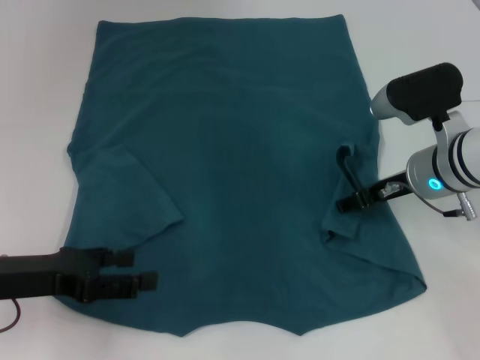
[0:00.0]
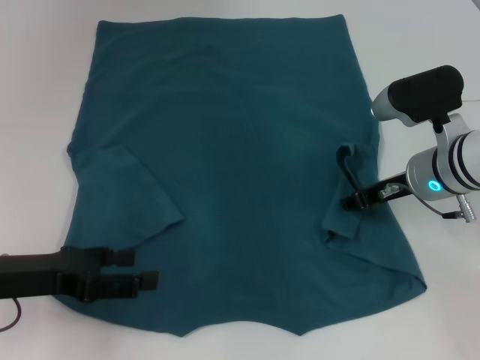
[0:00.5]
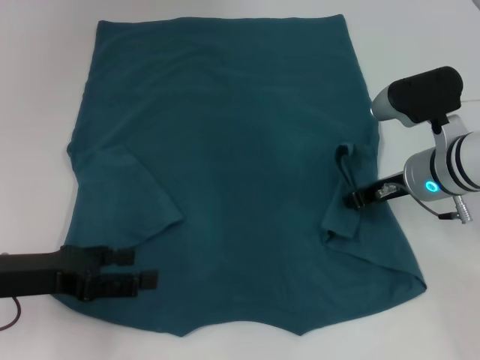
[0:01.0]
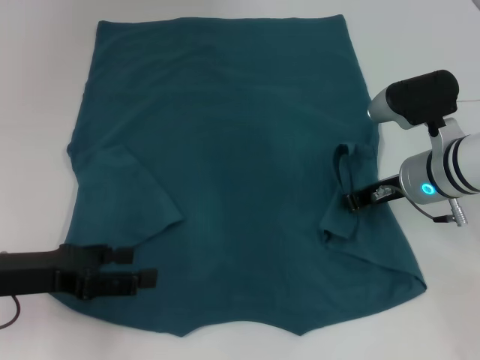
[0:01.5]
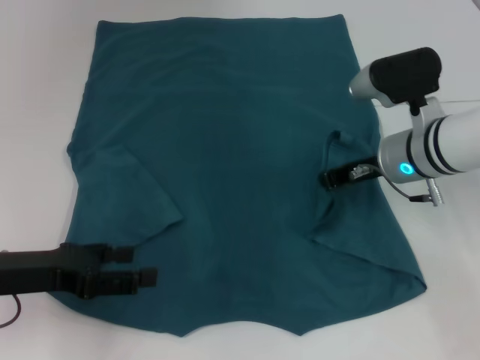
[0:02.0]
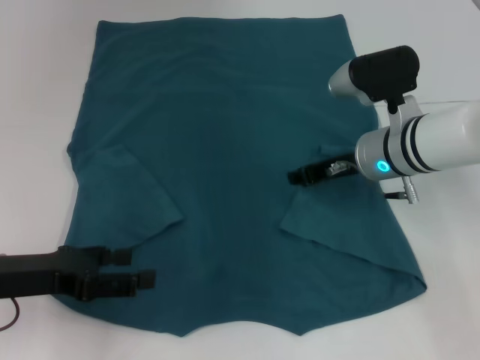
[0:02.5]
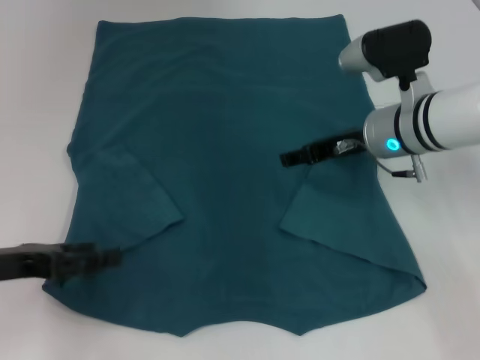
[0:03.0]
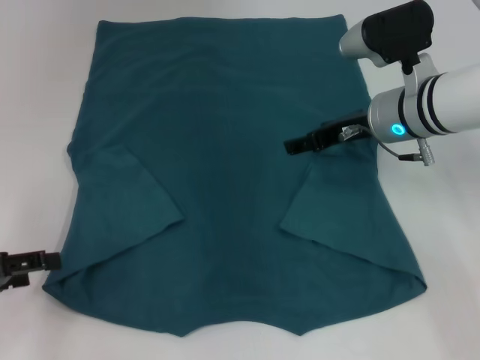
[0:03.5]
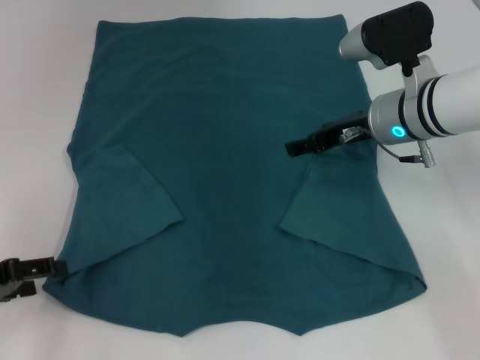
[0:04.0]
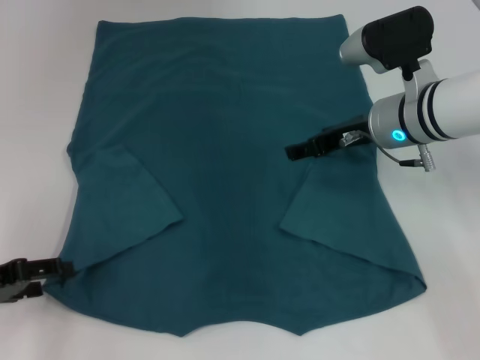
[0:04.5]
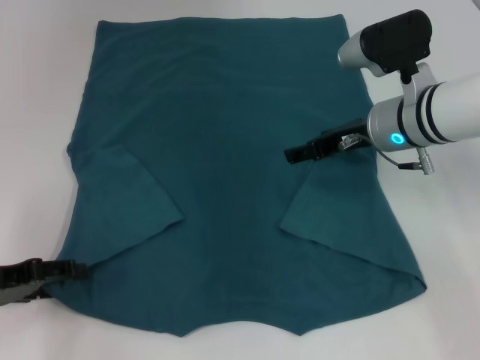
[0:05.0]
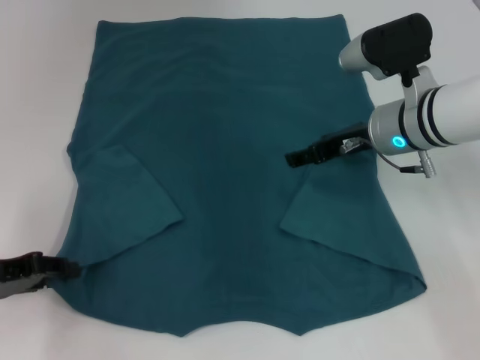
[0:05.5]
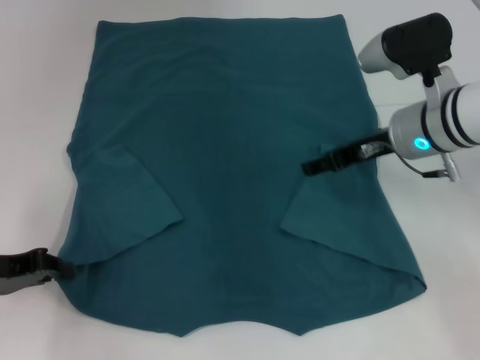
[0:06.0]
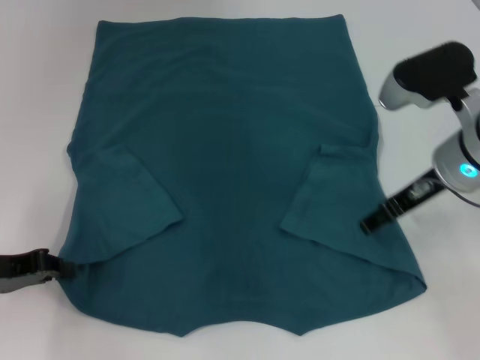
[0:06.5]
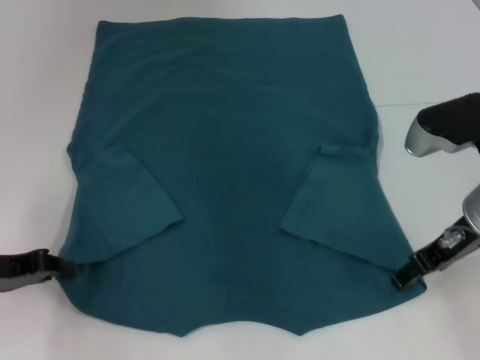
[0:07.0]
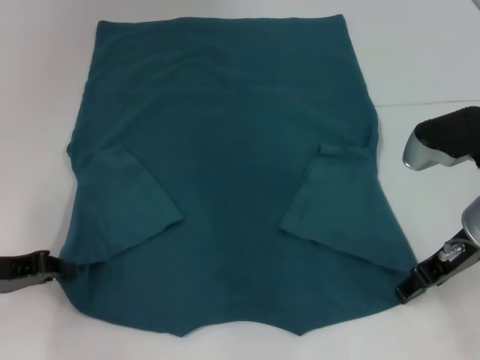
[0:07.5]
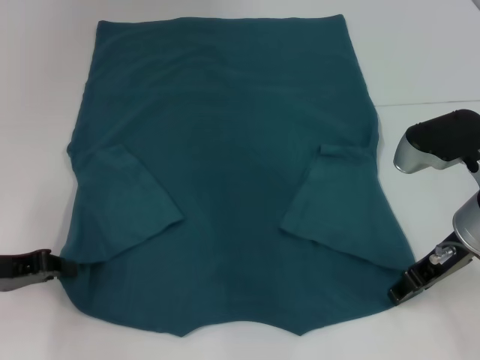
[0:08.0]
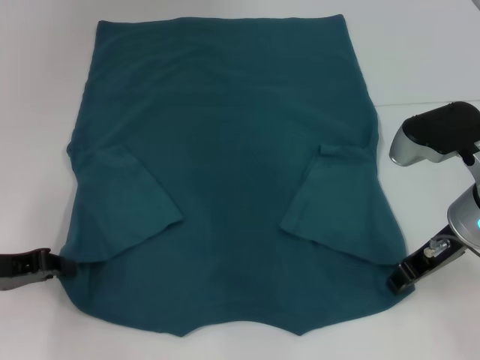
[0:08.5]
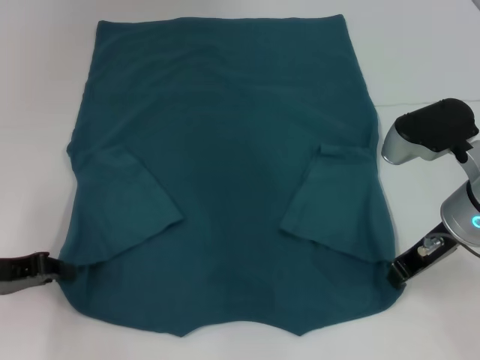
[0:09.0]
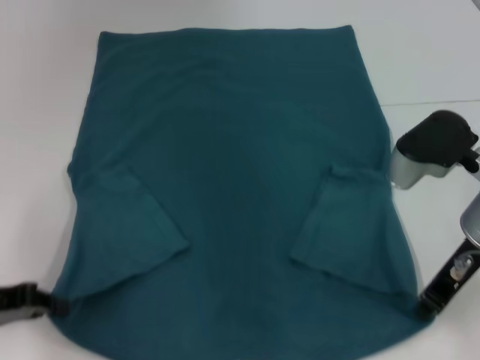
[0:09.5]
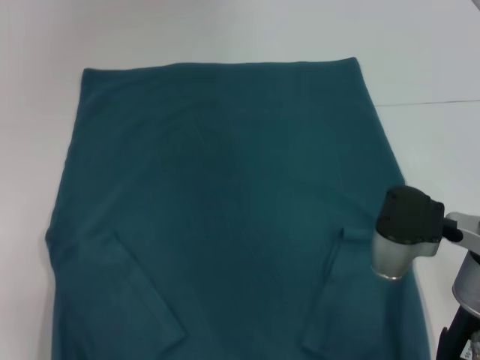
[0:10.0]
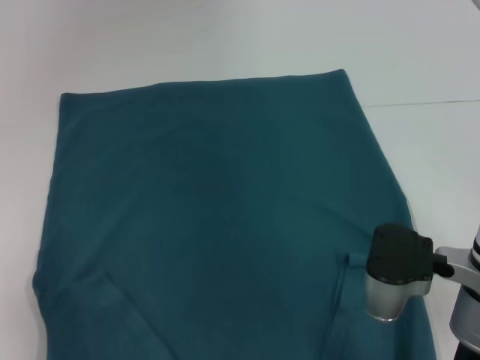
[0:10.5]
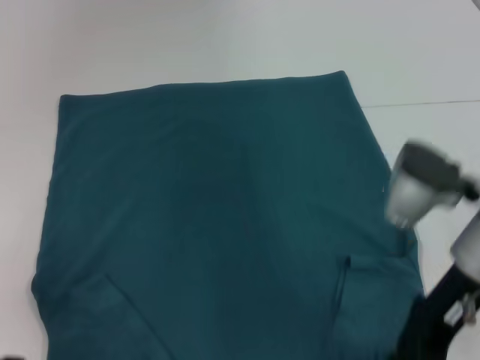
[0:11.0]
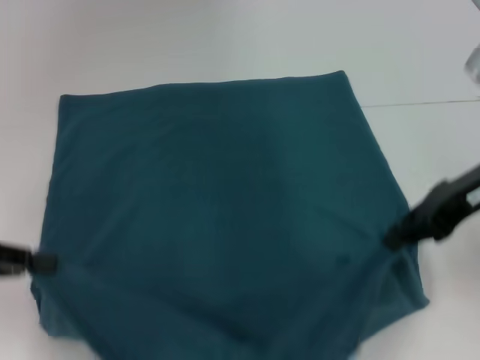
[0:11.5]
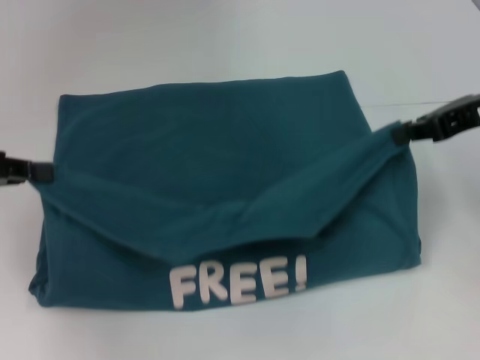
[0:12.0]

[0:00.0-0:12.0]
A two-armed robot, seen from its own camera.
Step, 0:00.0 to 0:02.5: Fold the bottom right sleeve to the right.
Step, 0:03.0 to 0:06.0: Grab the bottom left corner with your left hand.
Step, 0:06.5 to 0:09.0: Grab the bottom right corner with your right hand.
0:00.0 to 0:02.0: The right gripper closes its fingers.
0:02.0 to 0:04.0: The right gripper opens up; the left gripper travels to the left by some 5 cm.
0:04.0 to 0:06.0: The left gripper closes its fingers.
0:06.0 to 0:08.0: The right gripper is displaced backward by roughly 10 cm.
0:08.0 to 0:10.0: The right gripper changes place by approximately 5 cm, and closes. Meanwhile the left gripper travels backward by roughly 10 cm.
0:10.0 to 0:12.0: The left gripper heads forward and upward, covering some 15 cm. The right gripper heads to the right, upward and forward, covering approximately 15 cm.

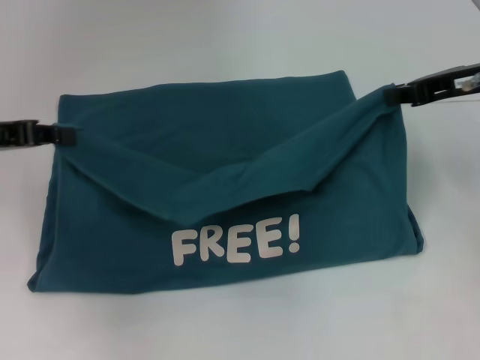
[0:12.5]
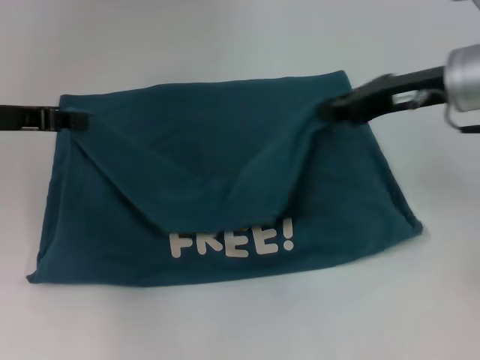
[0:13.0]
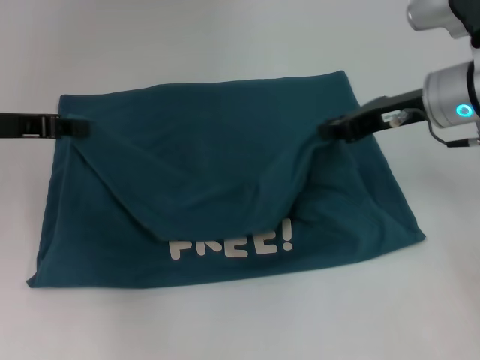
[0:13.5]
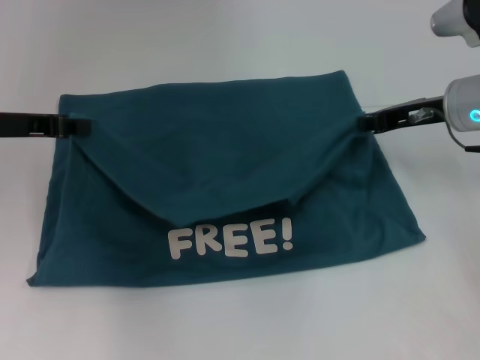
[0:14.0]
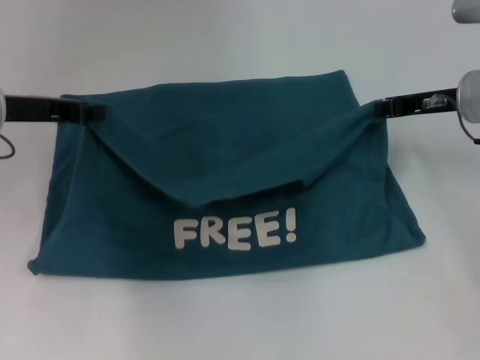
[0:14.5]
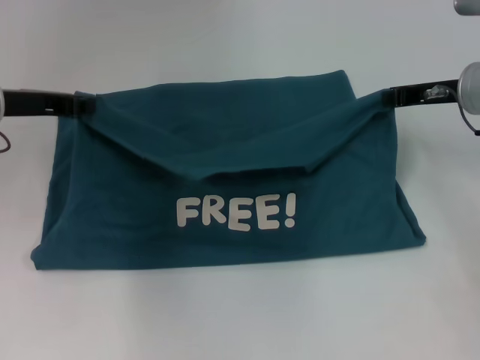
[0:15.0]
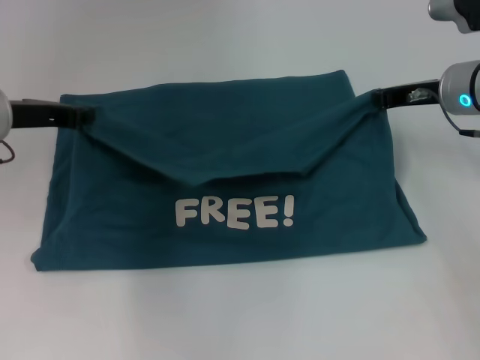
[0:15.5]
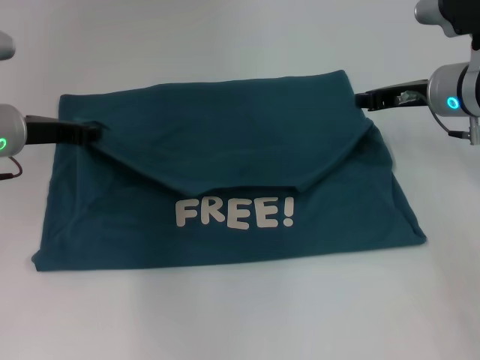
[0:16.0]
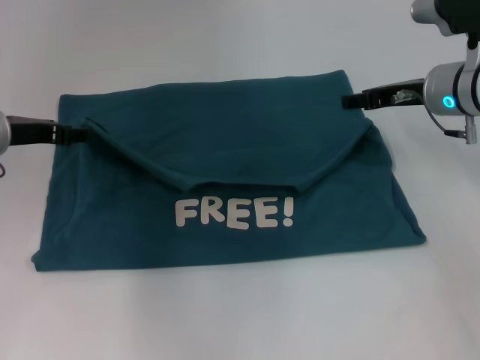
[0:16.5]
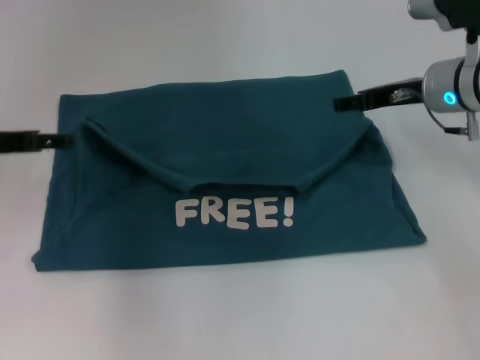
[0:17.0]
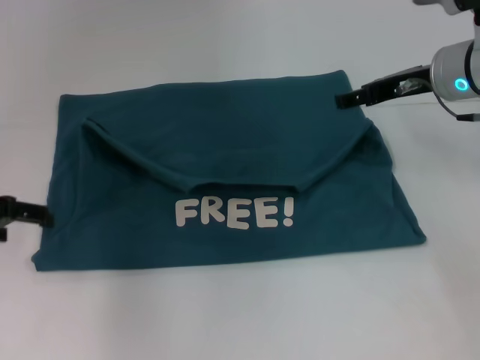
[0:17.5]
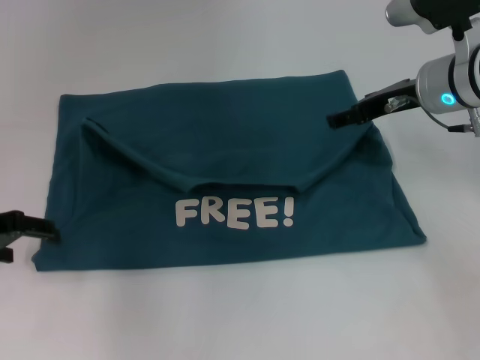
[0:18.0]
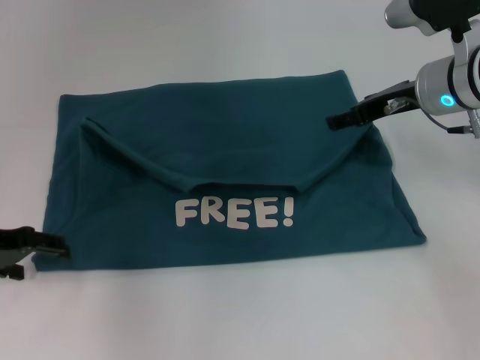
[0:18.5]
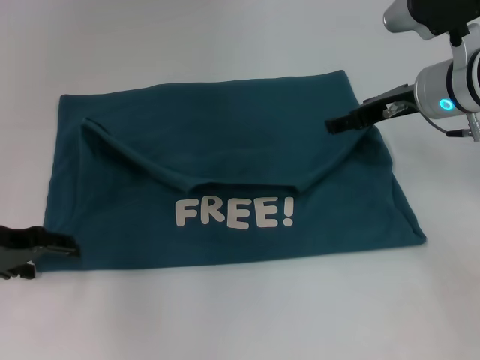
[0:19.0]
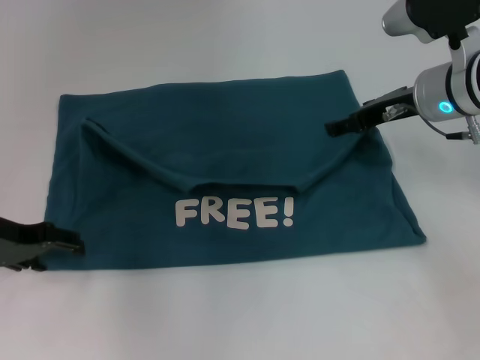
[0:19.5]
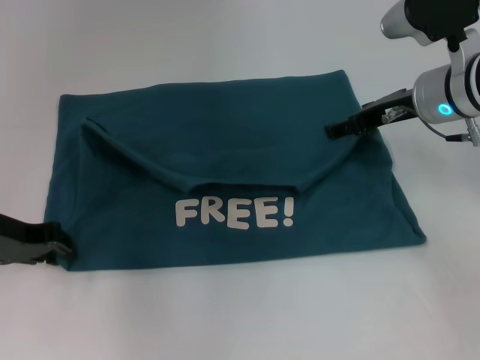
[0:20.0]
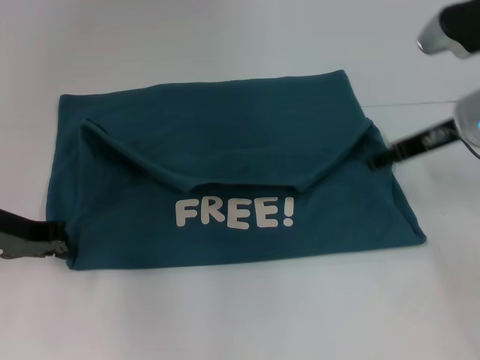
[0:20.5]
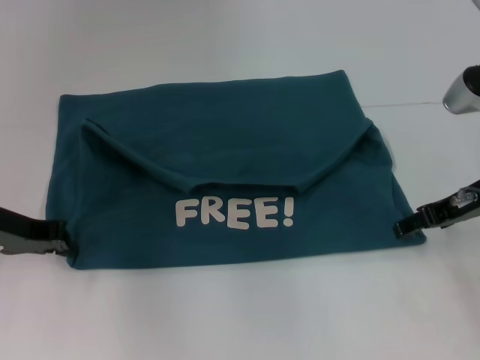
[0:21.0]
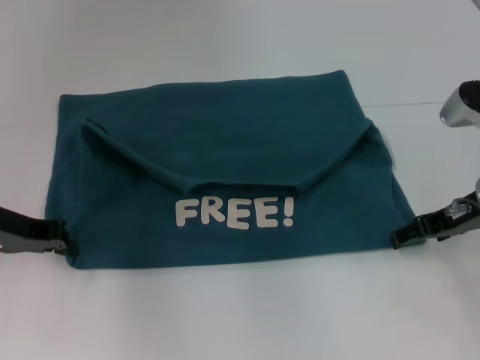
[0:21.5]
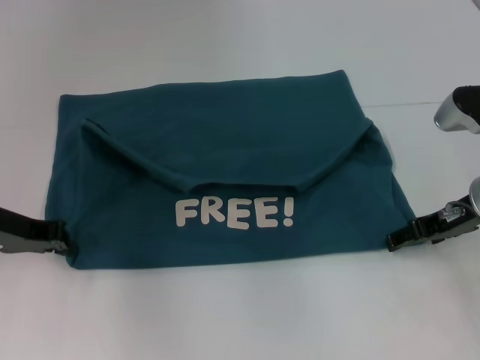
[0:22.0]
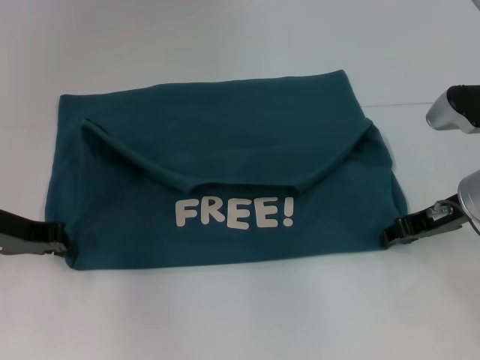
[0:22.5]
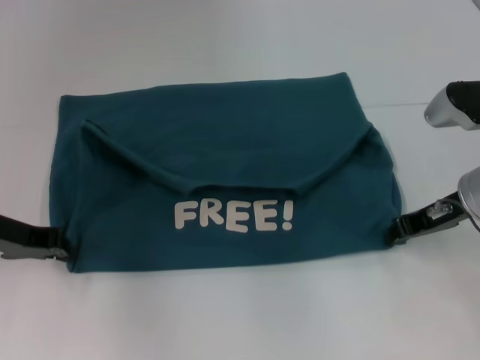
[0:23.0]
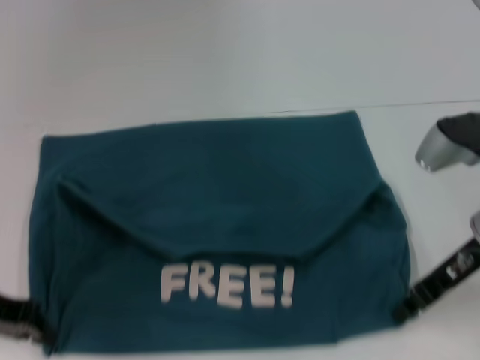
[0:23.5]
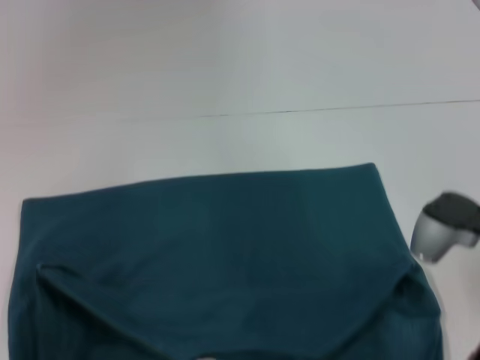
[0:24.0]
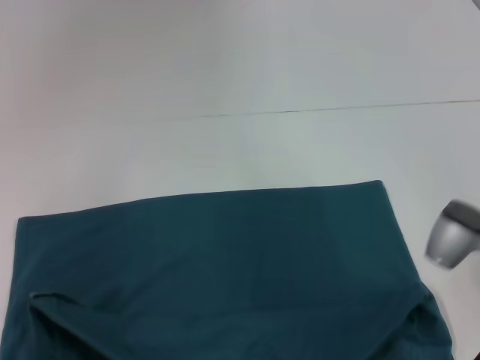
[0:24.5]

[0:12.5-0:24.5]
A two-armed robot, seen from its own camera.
Step, 0:12.5 to 0:16.5: Fold the clothes to the left.
Step, 0:12.5 to 0:16.5: Fold the clothes to the right.
Step, 0:17.0 to 0:23.0: Pull the clothes with your left hand.
Step, 0:17.0 to 0:23.0: Pull the clothes with your right hand.
0:12.5 to 0:14.5: The right gripper heads downward, covering some 5 cm, while the left gripper shifts about 5 cm to the right.
0:14.5 to 0:16.5: The right gripper opens, while the left gripper opens up.
0:16.5 to 0:18.5: The right gripper opens. The left gripper moves backward, some 10 cm, and opens up.
0:18.5 to 0:20.5: The left gripper closes up.
0:20.5 to 0:22.5: The right gripper travels downward by about 5 cm.
0:22.5 to 0:24.5: The grippers both shift backward by some 10 cm. The right gripper closes up.

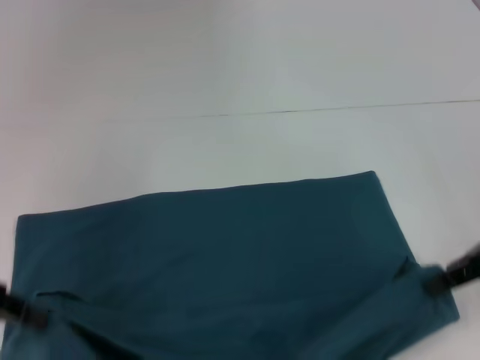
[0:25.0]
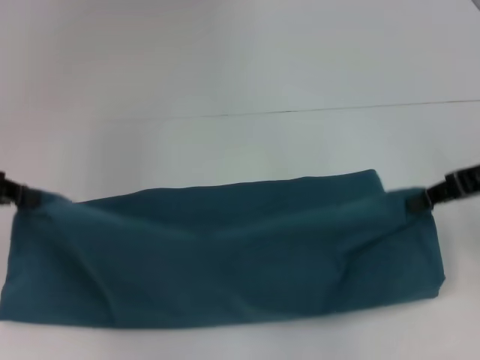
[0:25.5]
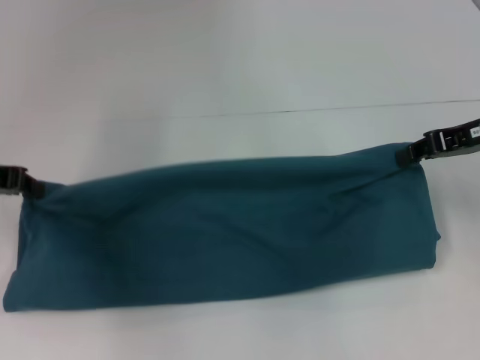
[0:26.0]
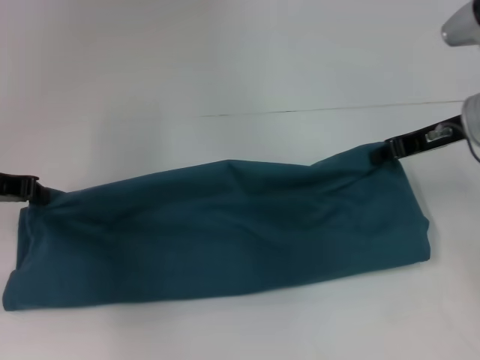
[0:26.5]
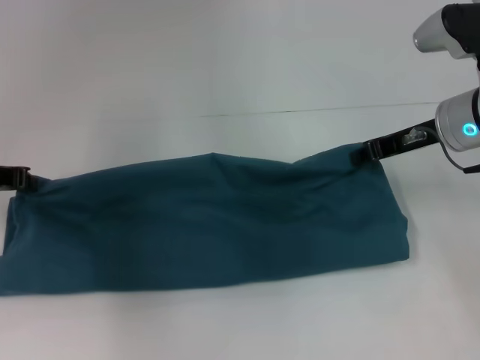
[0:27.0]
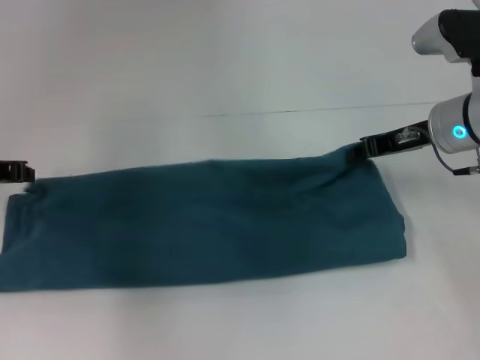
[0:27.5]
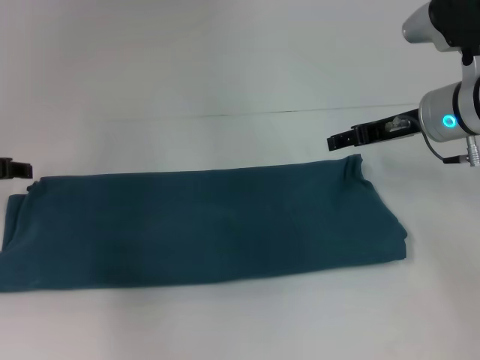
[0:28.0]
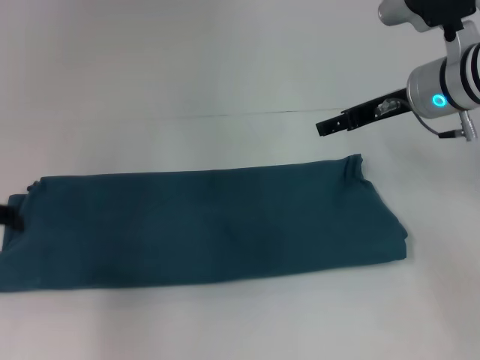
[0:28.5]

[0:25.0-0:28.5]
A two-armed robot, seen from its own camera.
Step, 0:25.0 to 0:27.5: Fold the clothes to the left.
Step, 0:25.0 to 0:27.5: Fold the clothes to the right.
0:25.0 to 0:27.0: The left gripper travels forward by approximately 10 cm. The right gripper moves forward and to the left, approximately 10 cm.
0:27.0 to 0:28.5: The left gripper moves approximately 5 cm, and opens; the right gripper opens up.
